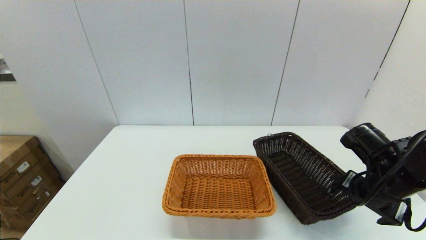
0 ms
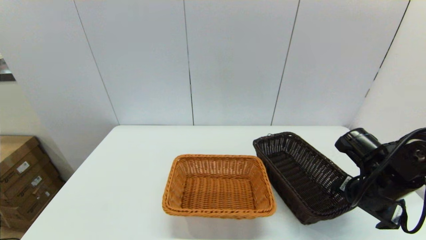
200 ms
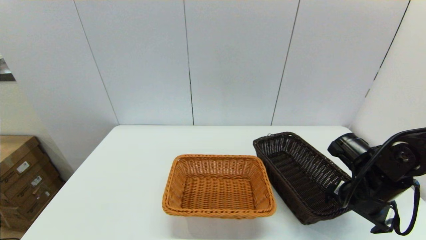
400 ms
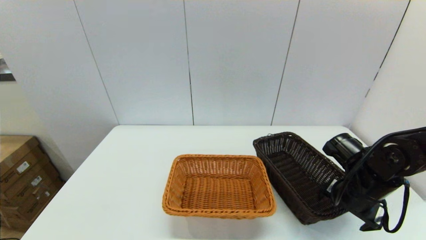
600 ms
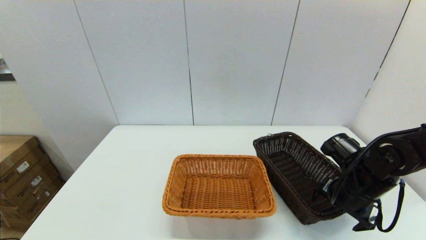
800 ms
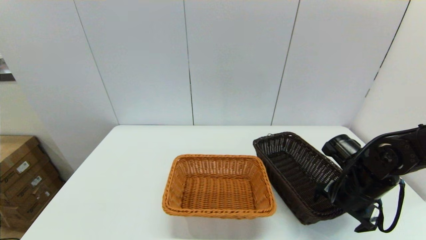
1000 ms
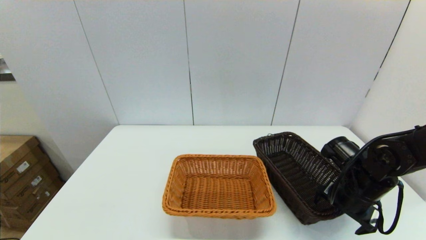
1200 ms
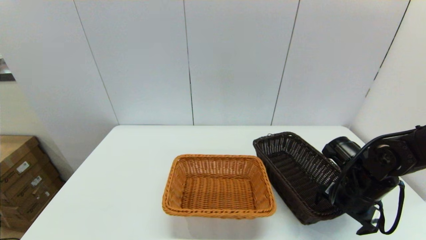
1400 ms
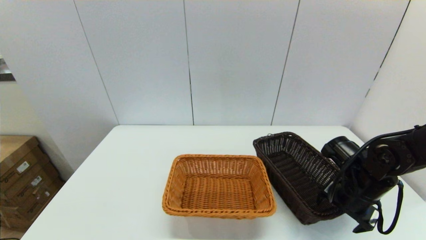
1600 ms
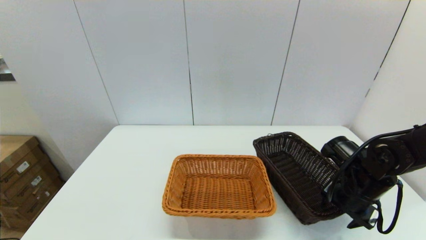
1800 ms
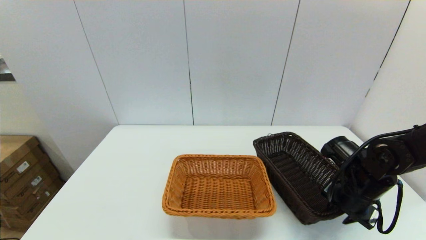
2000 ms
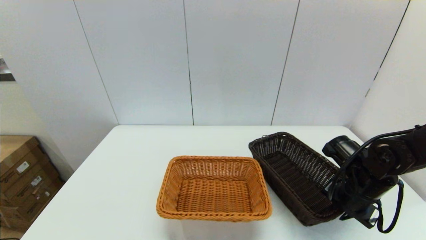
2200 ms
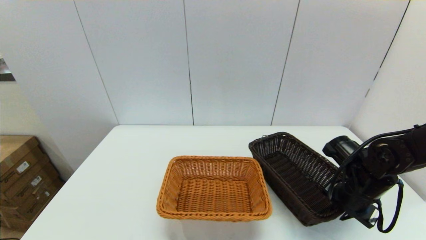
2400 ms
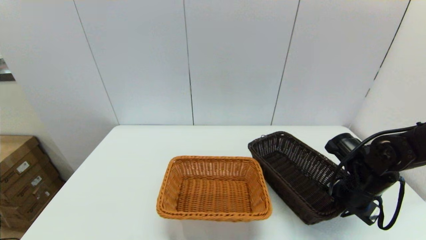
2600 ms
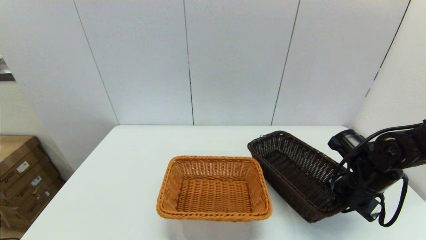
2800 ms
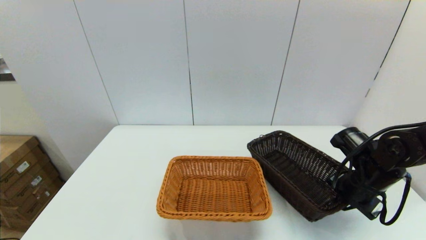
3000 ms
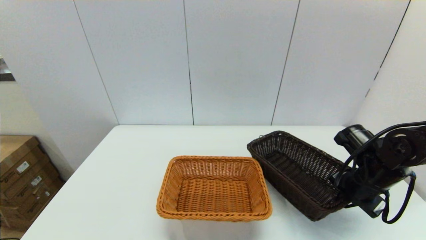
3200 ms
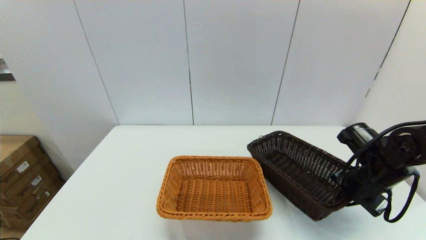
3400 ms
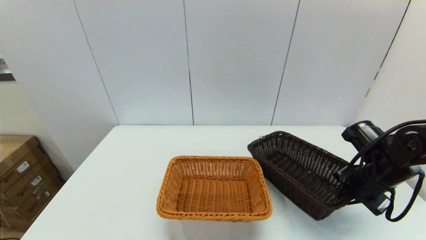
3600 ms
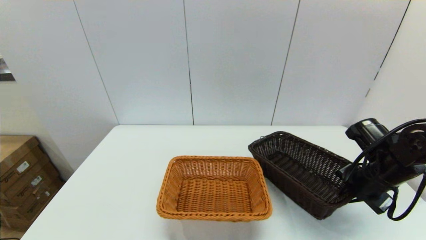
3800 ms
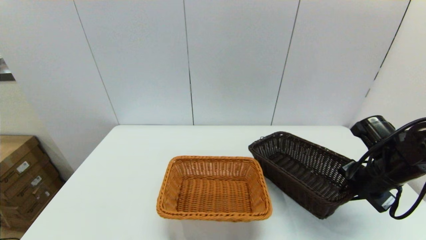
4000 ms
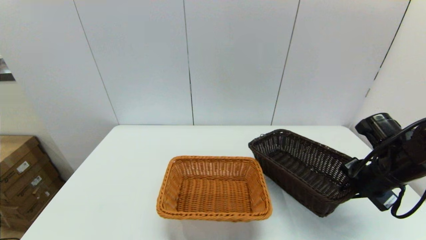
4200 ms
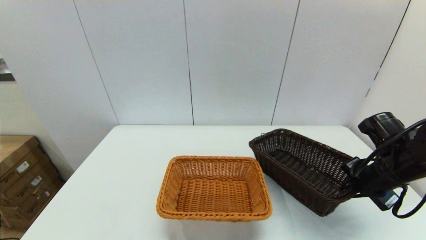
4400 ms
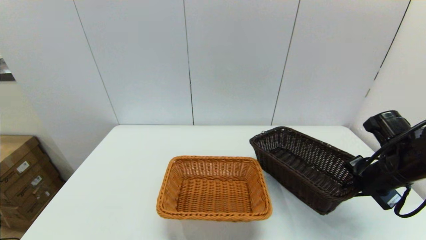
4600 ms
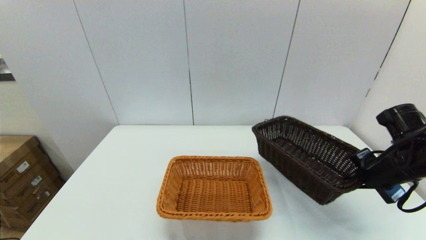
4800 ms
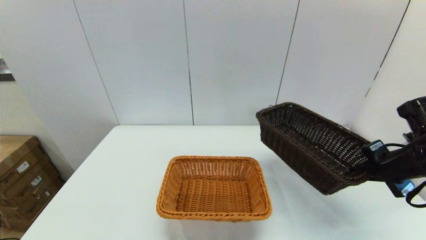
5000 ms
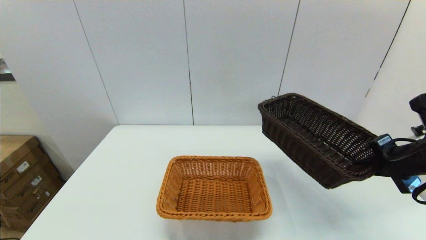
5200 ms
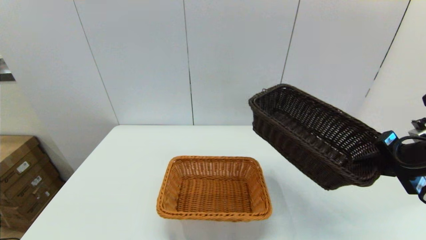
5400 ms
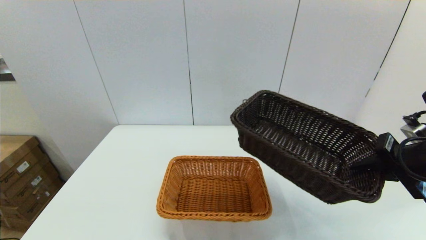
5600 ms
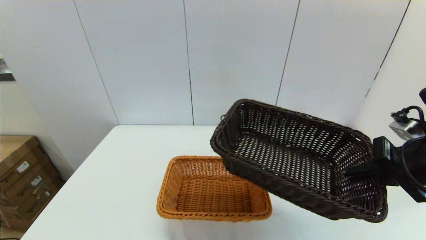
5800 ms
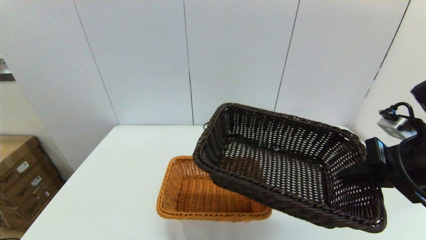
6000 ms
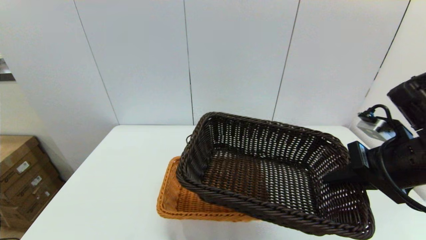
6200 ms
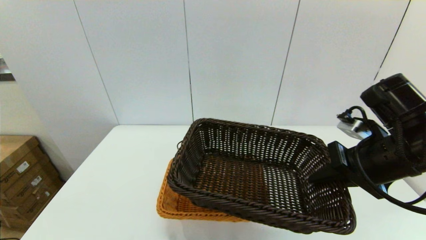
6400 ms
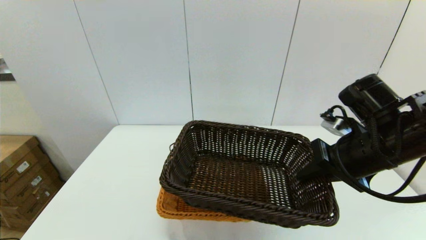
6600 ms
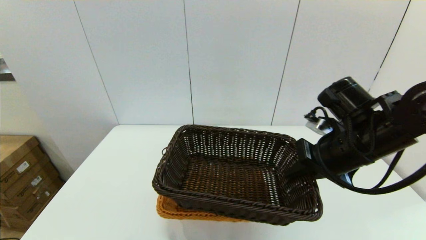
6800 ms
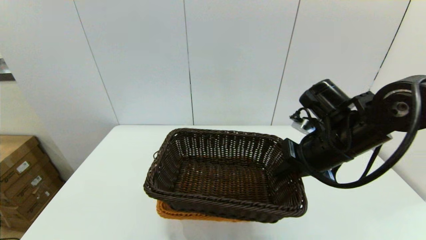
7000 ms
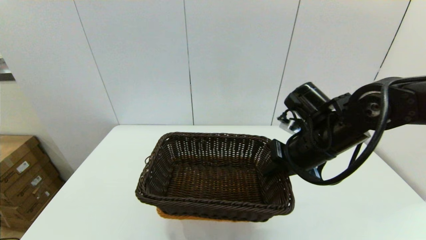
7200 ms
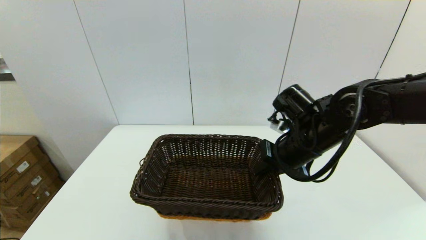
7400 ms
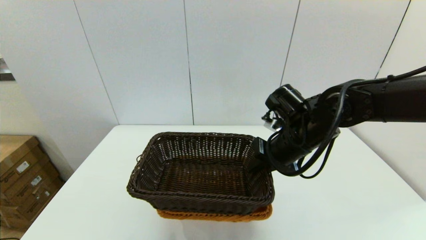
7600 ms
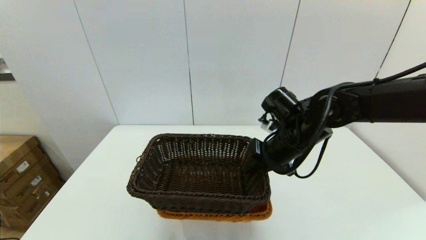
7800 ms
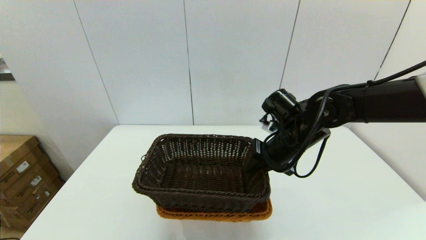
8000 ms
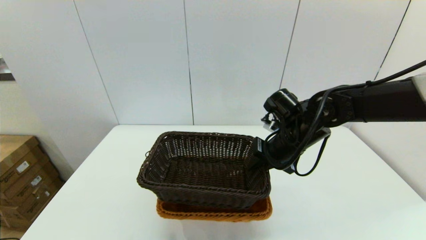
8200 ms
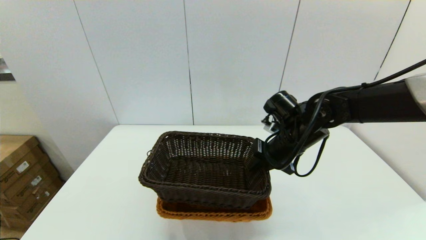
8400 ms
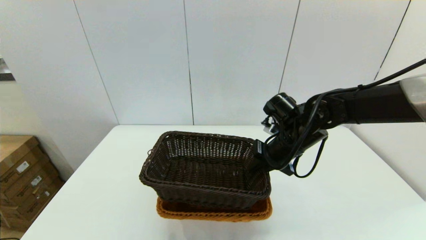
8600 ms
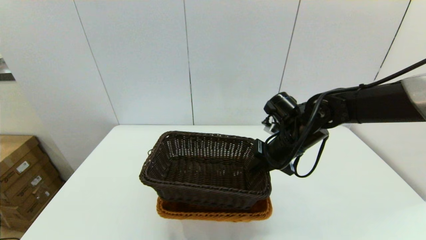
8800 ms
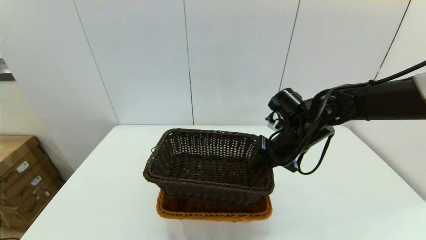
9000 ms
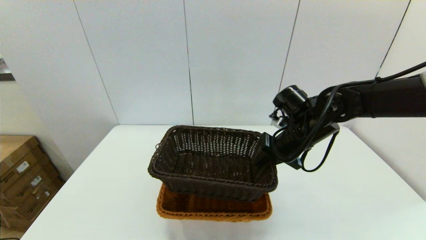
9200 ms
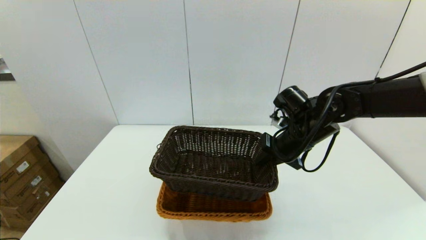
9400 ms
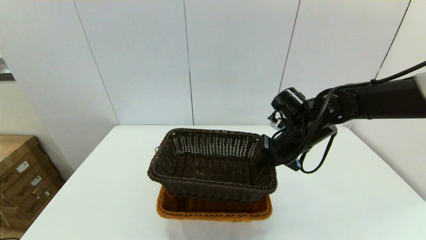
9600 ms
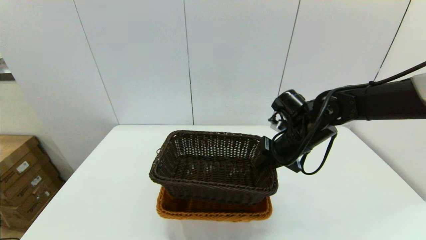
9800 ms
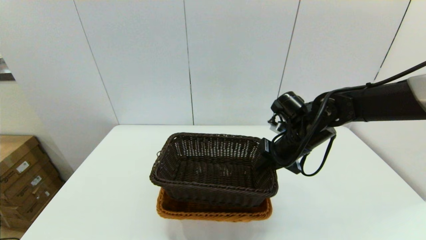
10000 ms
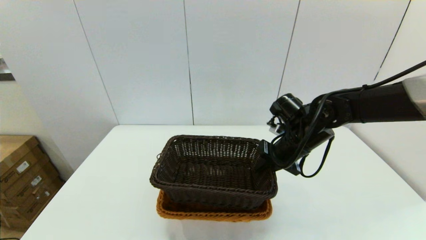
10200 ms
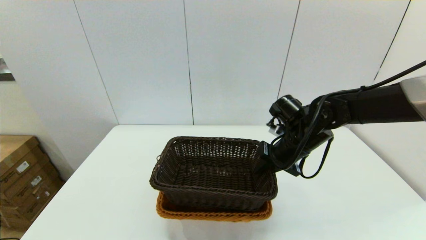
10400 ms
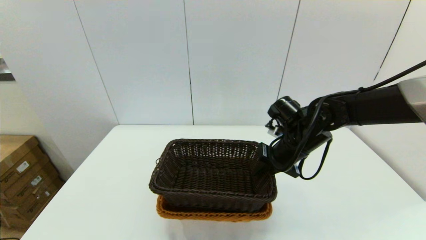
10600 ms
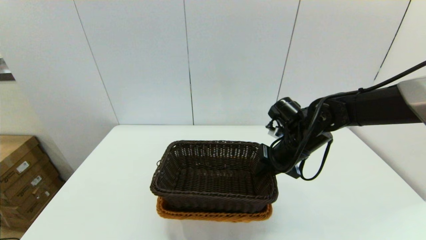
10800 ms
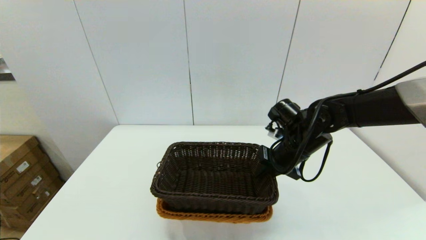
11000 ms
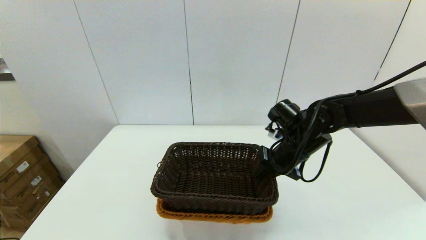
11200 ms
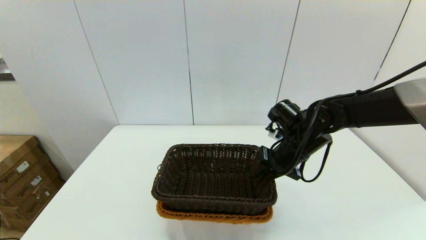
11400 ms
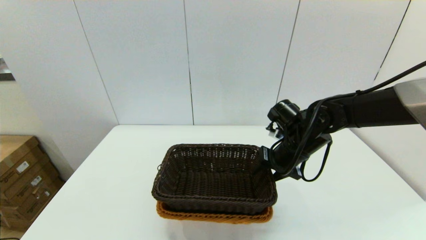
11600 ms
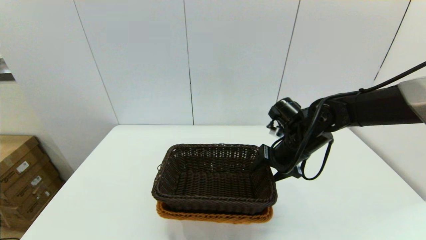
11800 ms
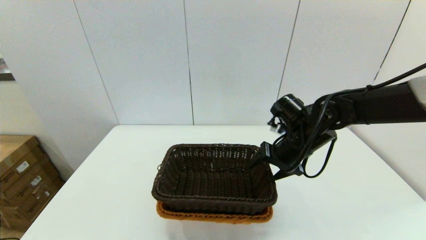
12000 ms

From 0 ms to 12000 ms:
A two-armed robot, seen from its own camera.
Task of the whole recording: stack a basket on top of another basket.
Step, from 0 ms to 2200 ms: Grasp the dark basket with the right gripper.
From 0 ms to 1600 ms: The right gripper travels downward by some 5 cm.
From 1600 ms to 3000 ms: The right gripper closes up.
From 3000 ms to 4400 ms: The grippers move only a little.
From 4400 ms to 6000 ms: The right gripper shifts approximately 10 cm upward and backward.
From 6000 ms to 7600 ms: The right gripper shifts approximately 20 cm to the left, forward and downward.
From 7600 ms to 10400 ms: The grippers stay close to where they were, moving slightly.
From 10400 ms to 12000 ms: The right gripper opens its fingers.

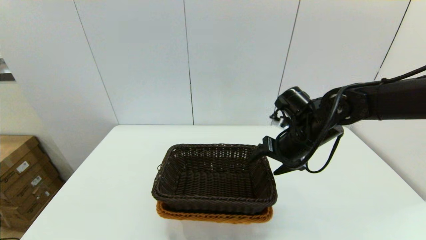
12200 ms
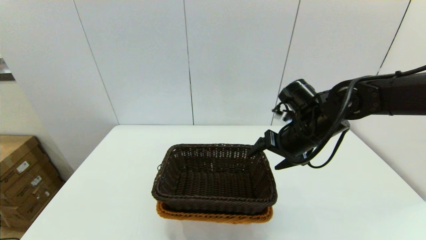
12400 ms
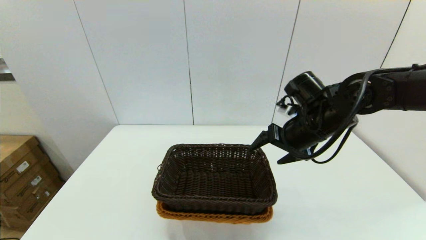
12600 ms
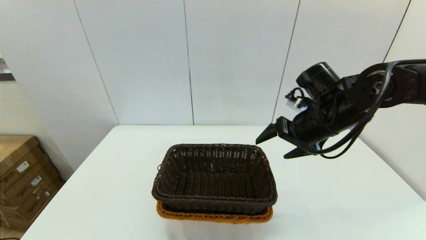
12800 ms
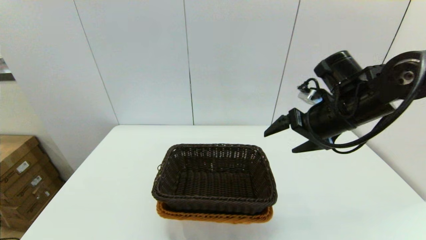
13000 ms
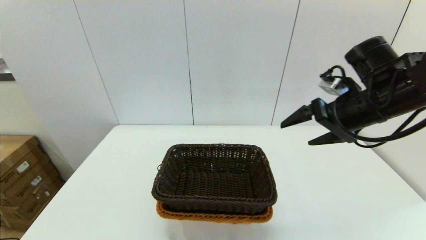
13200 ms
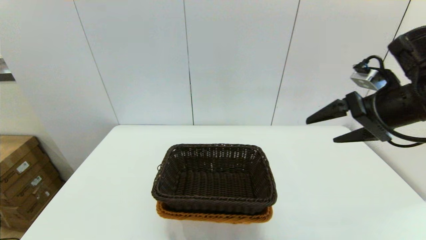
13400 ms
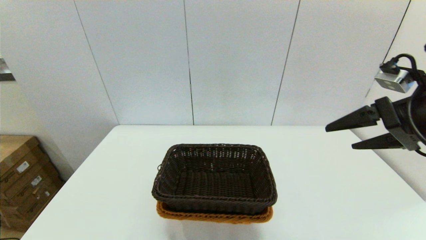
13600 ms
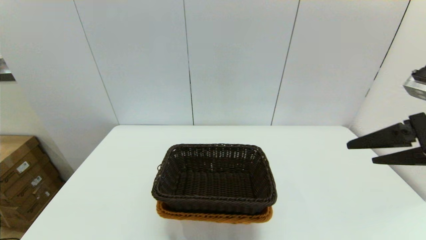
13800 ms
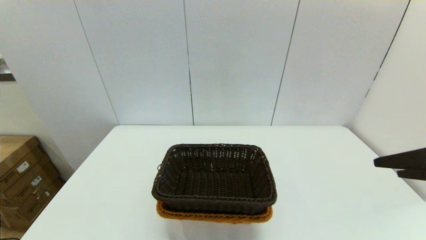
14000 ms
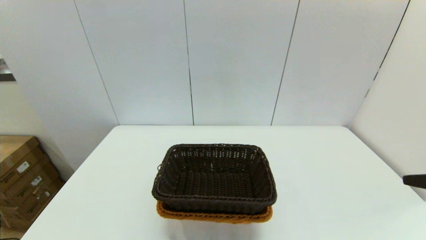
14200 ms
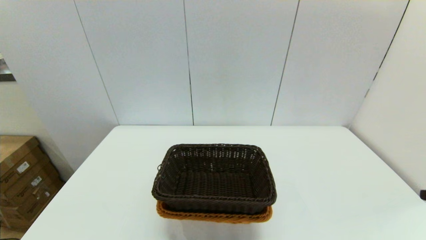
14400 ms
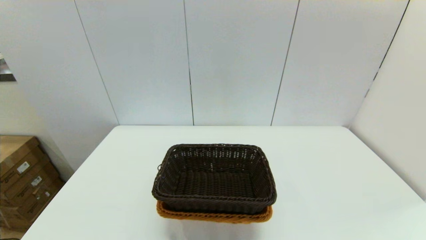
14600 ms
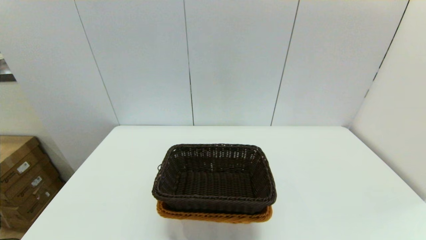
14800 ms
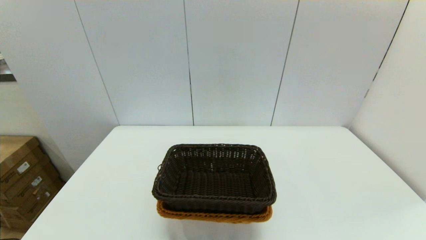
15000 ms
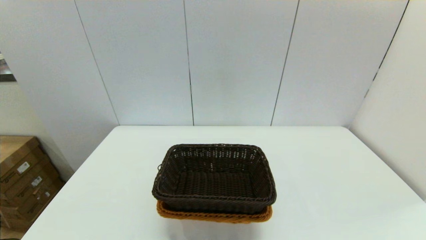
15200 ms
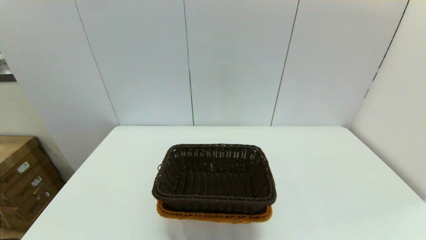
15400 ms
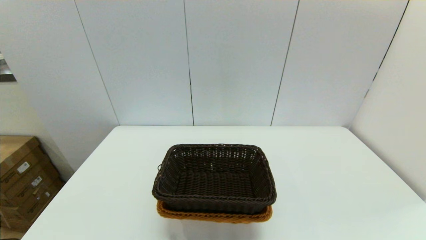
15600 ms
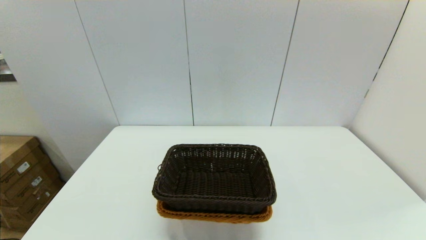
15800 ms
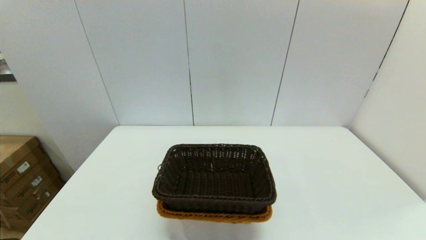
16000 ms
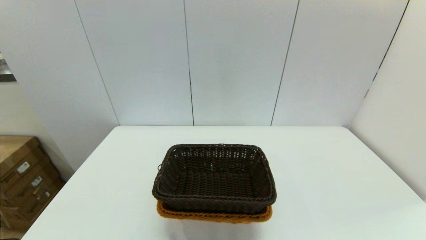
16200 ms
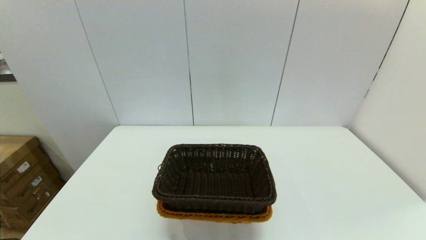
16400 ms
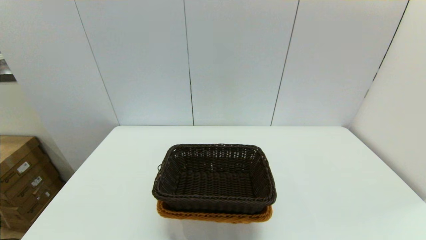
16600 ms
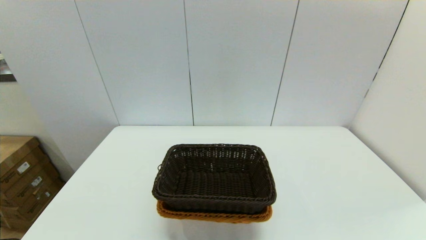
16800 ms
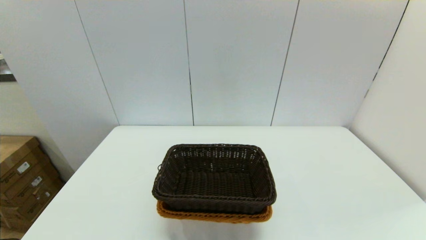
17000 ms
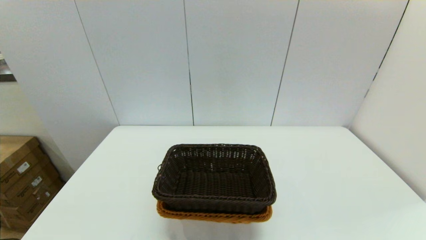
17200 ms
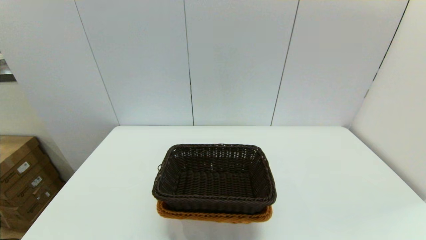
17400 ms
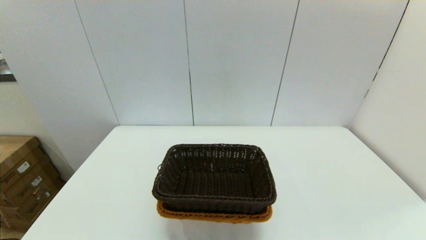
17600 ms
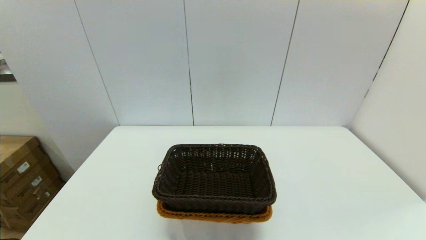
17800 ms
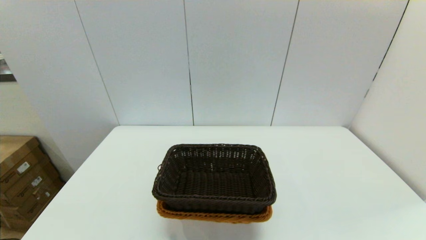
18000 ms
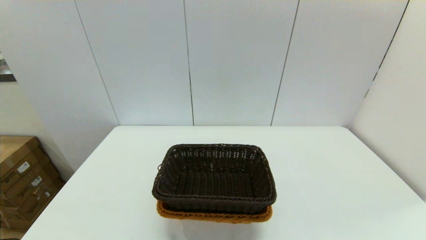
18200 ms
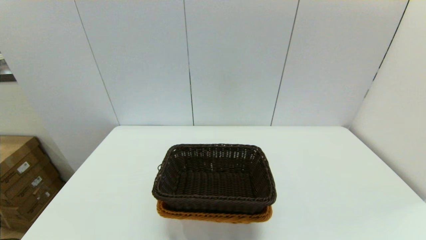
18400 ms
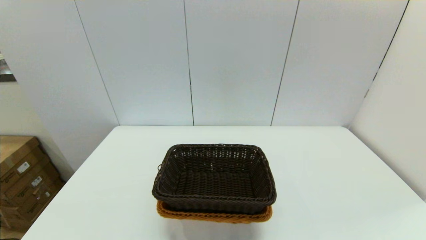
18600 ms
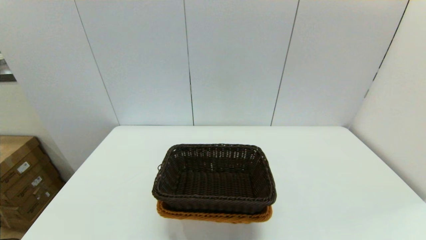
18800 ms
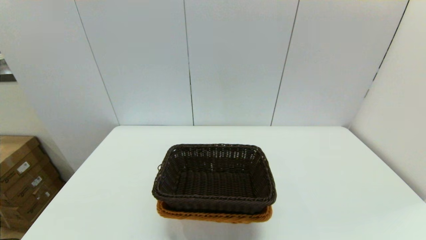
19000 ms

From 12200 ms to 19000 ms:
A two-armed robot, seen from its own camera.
Task of the whole recording: stack a basket on top of another basket.
From 12200 ms to 13600 ms: The right gripper moves to the right, upward and backward, some 20 cm.
From 13600 ms to 15000 ms: The right gripper heads backward, covering roughly 25 cm.
From 17600 ms to 19000 ms: Neither gripper changes place.
